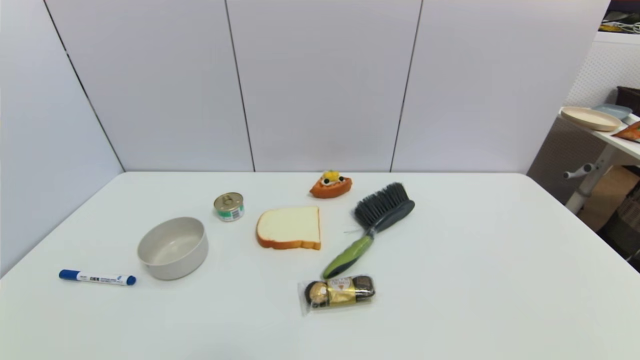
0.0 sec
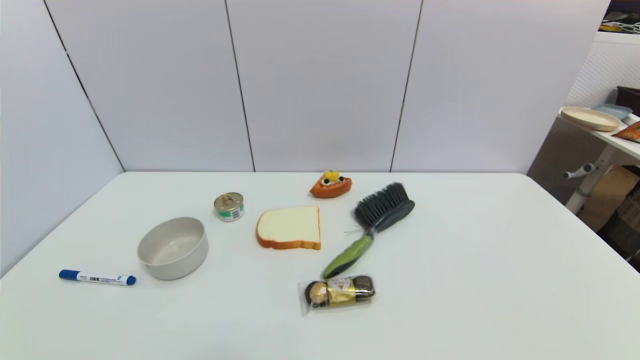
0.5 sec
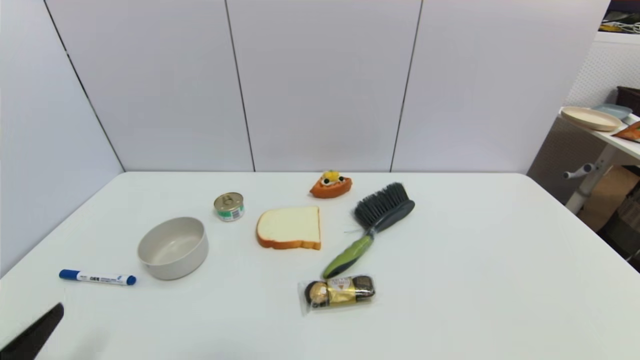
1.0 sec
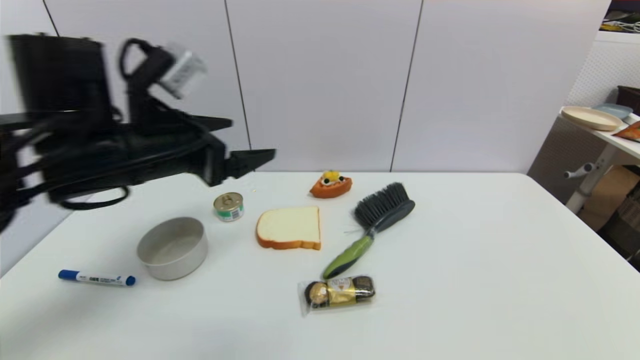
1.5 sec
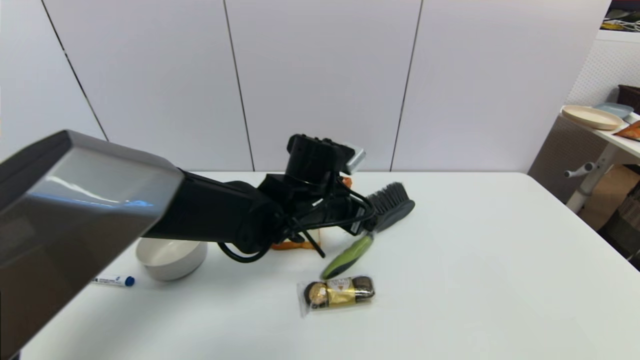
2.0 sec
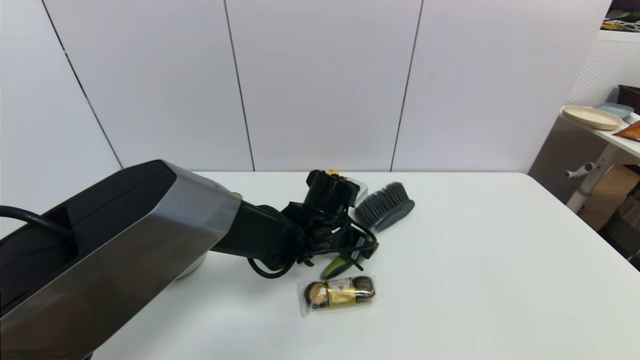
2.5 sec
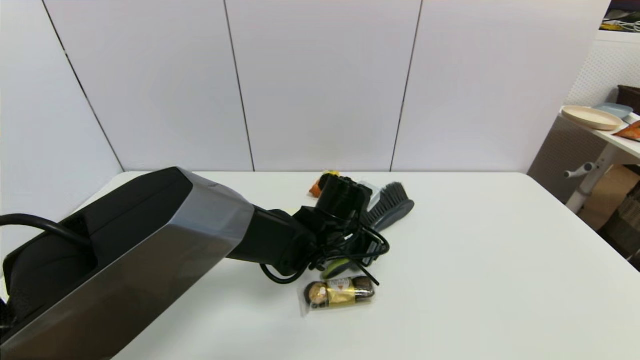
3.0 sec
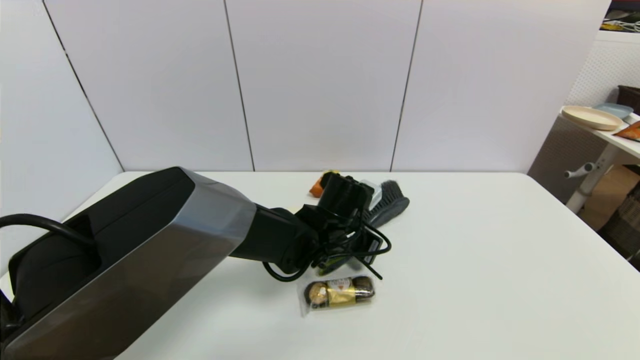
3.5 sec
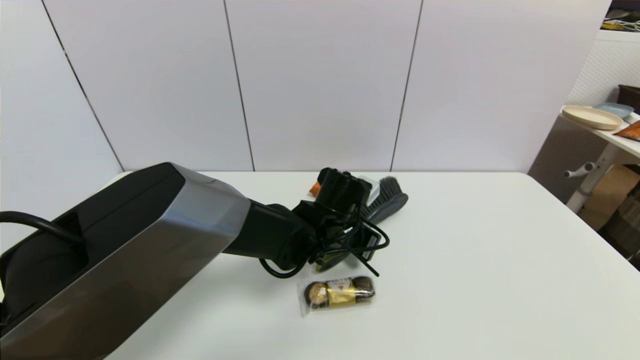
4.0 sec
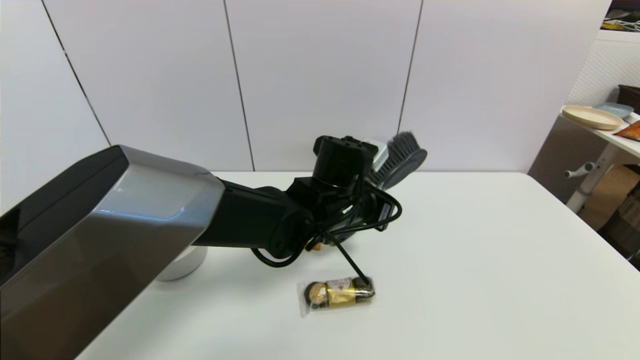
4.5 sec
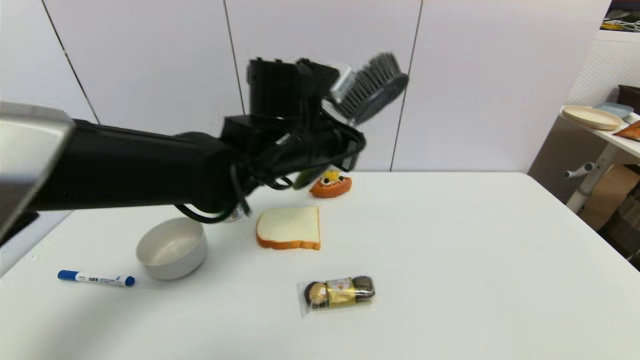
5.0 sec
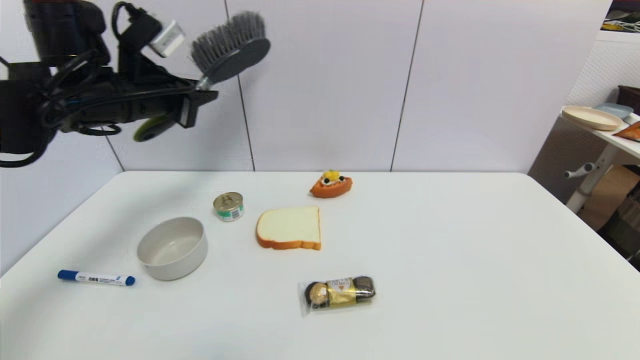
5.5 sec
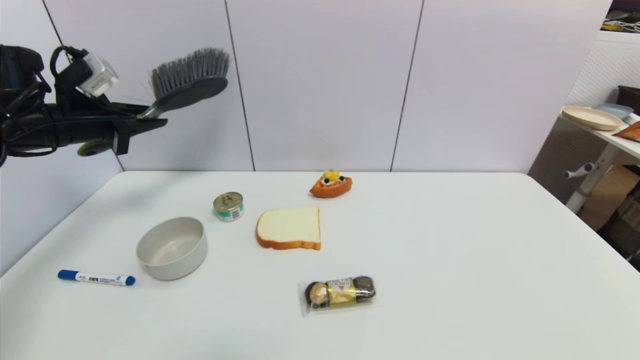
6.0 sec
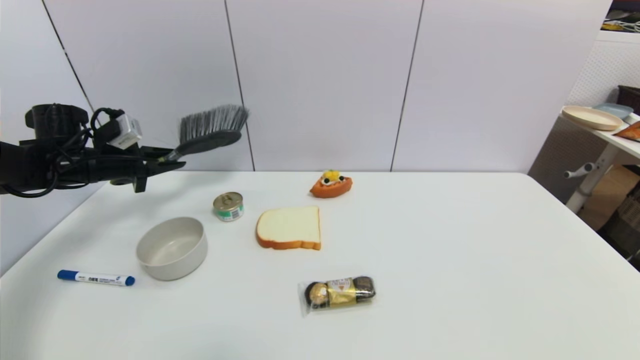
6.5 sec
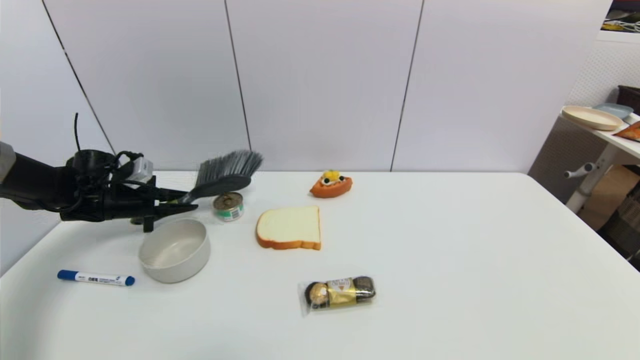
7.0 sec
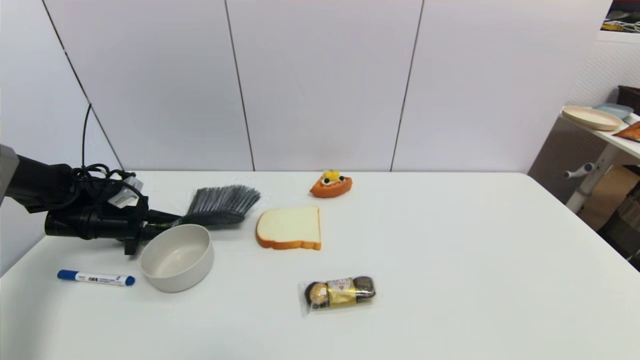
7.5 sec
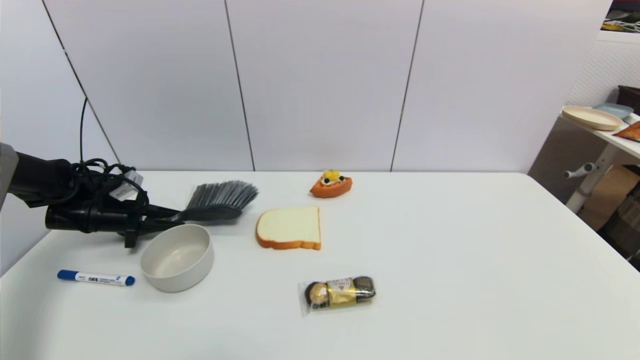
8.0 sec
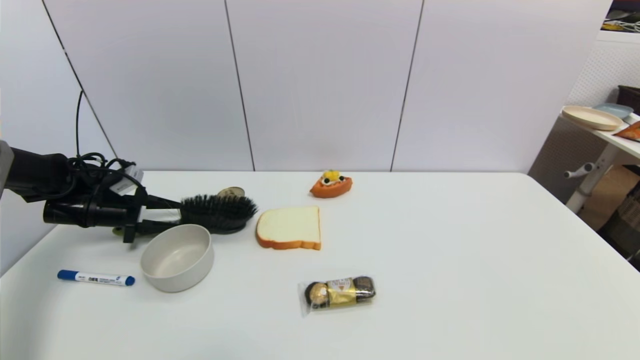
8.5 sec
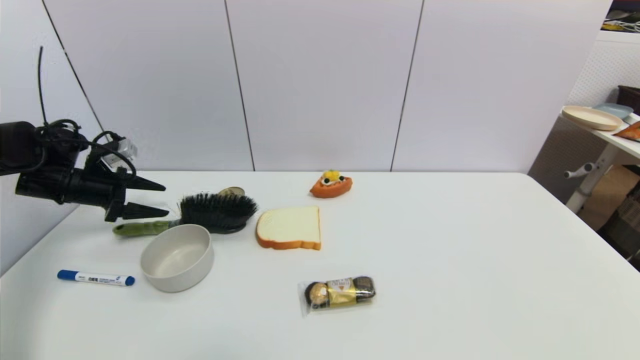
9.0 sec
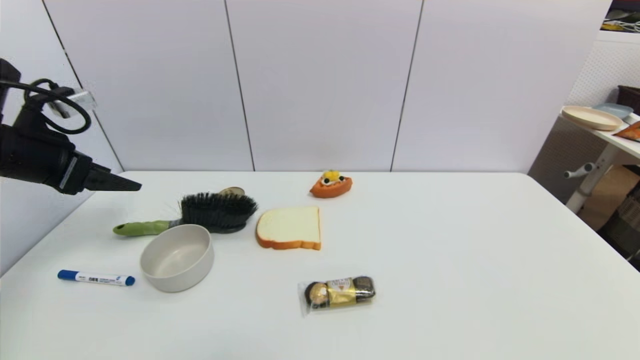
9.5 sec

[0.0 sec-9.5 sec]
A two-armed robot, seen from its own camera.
Task of the whole recording: put the brush in the designated position.
Step, 1.0 sec to 4.0 sec: Grasp the brush with left gripper.
Step, 4.5 sec to 8.5 sec: Place the brush on the table with left gripper.
0.0 sec to 2.0 sec: The left gripper moves forward and to the right, about 40 cm.
2.0 sec to 4.0 sec: The left gripper travels downward by about 5 cm, and closes its fingers.
4.0 sec to 5.5 sec: The left gripper is displaced to the left and upward by about 35 cm.
5.5 sec to 7.5 sec: The left gripper goes about 30 cm downward and to the left.
7.5 sec to 9.5 sec: The left gripper travels upward and backward by approximately 25 cm, and opens its fingers.

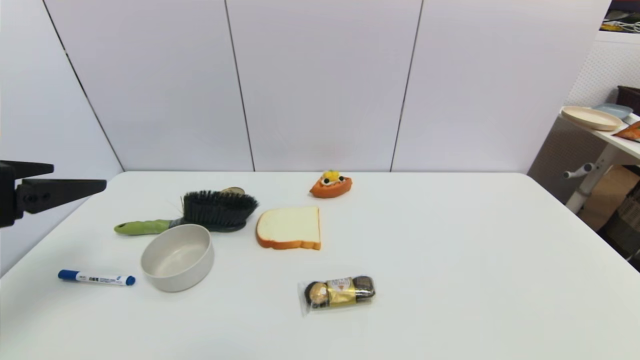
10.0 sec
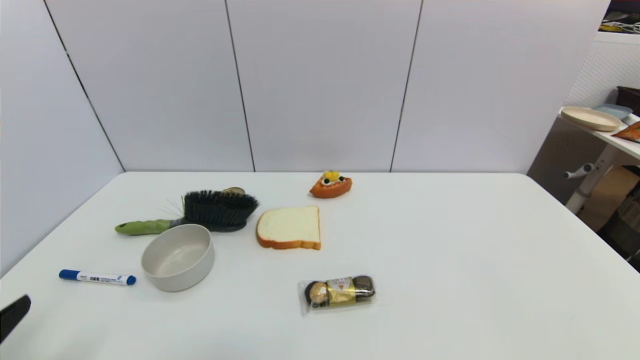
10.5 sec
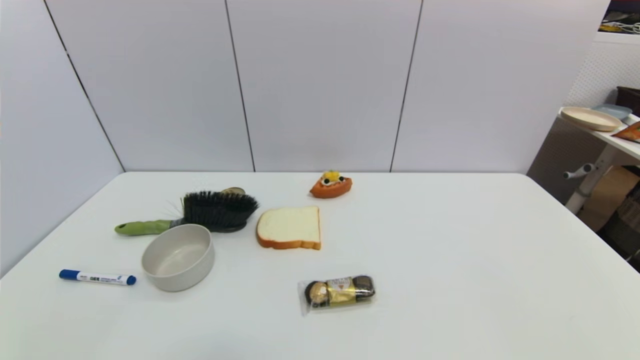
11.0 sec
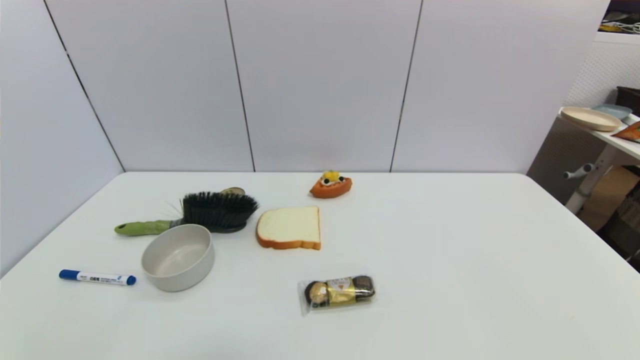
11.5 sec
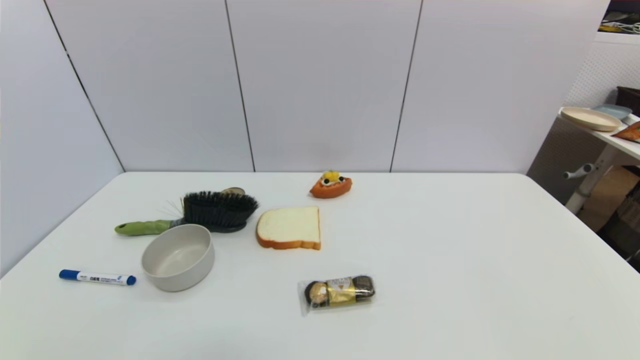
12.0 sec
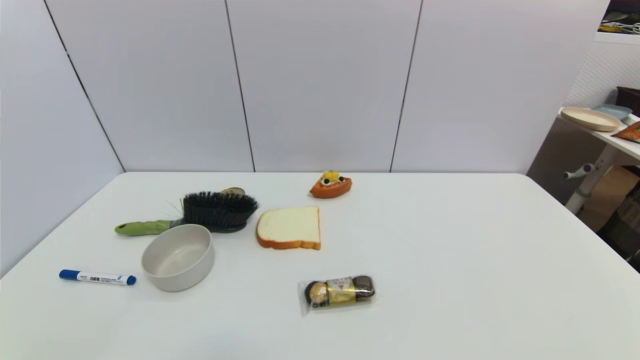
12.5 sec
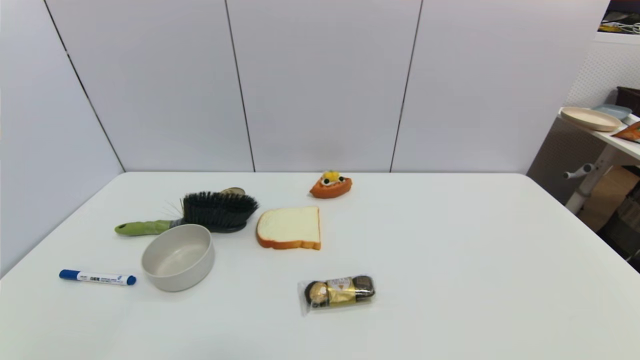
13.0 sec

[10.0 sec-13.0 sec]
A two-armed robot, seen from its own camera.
Task of the whole recording: put the brush in the designated position.
10.0 sec to 11.5 sec: The left gripper shifts approximately 25 cm downward and backward.
11.5 sec to 13.0 sec: The two grippers keep their place.
